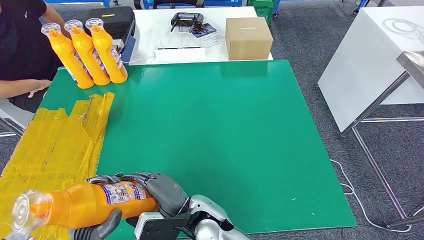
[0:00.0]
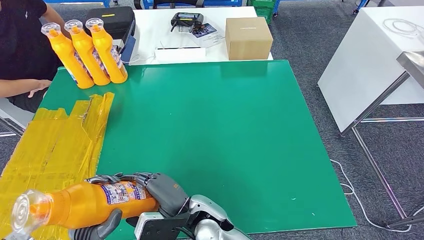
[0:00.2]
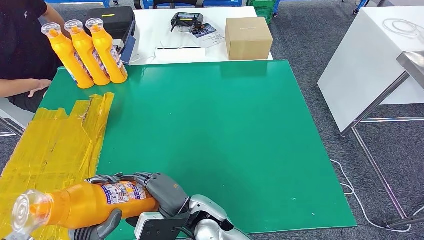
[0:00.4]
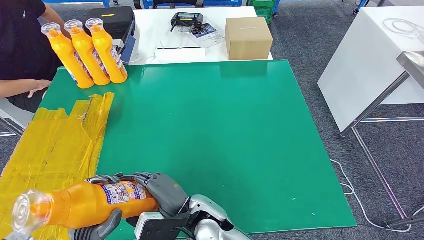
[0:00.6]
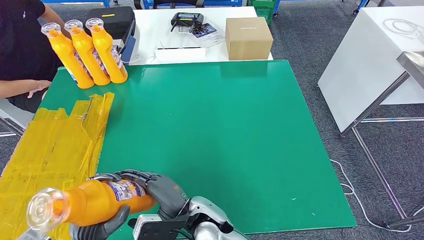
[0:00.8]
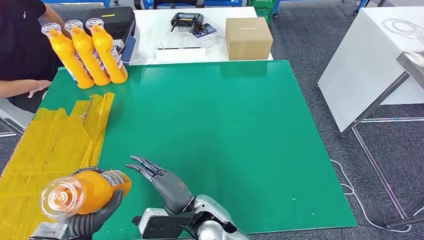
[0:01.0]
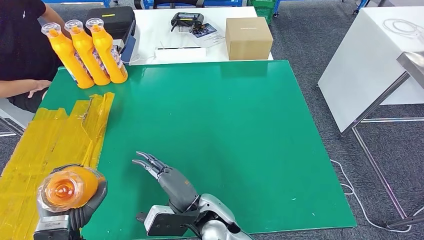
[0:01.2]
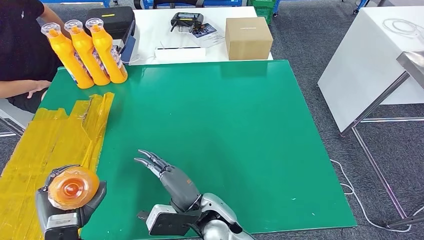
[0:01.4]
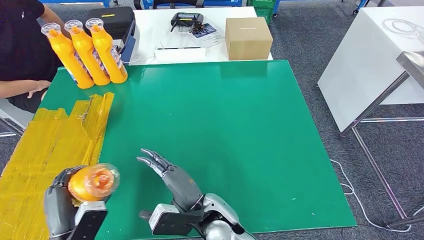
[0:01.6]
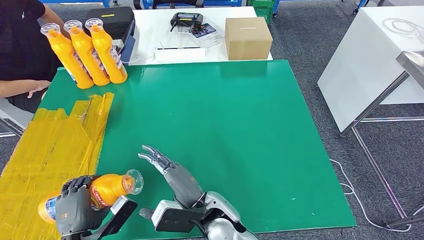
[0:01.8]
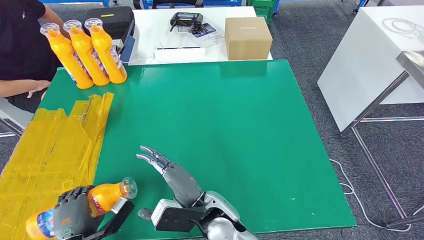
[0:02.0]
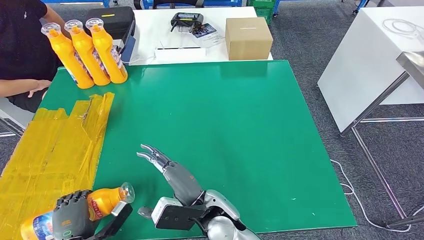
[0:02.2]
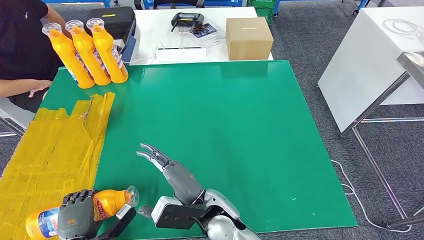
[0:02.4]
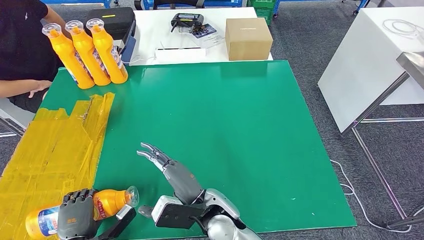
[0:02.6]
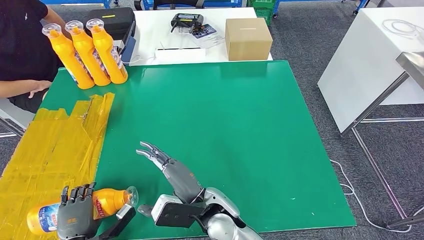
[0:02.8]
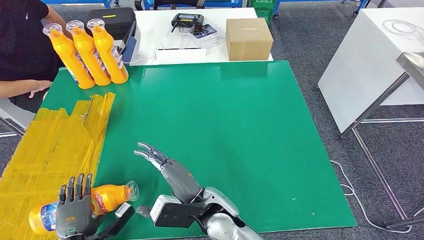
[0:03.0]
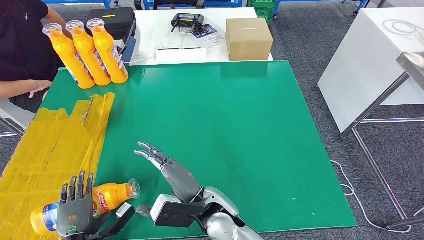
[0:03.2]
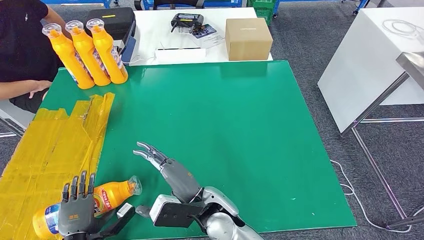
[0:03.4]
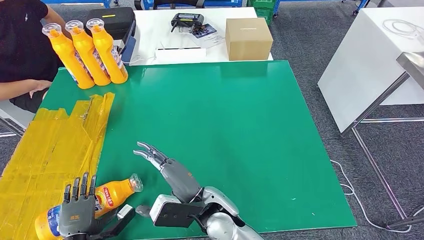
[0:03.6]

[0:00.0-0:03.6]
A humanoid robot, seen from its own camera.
Step, 0:00.0 to 0:03.6: Flip the bottle to face forward.
0:01.8 to 0:03.6: The left hand shifts about 5 cm downward.
